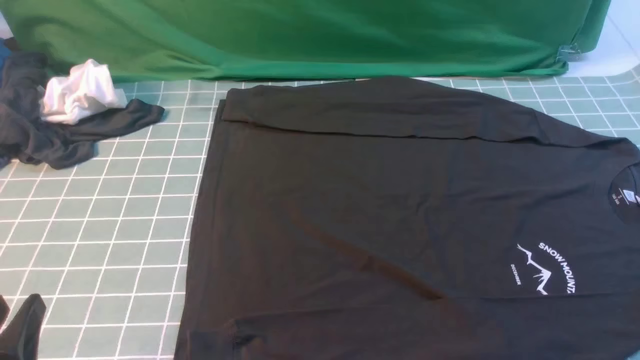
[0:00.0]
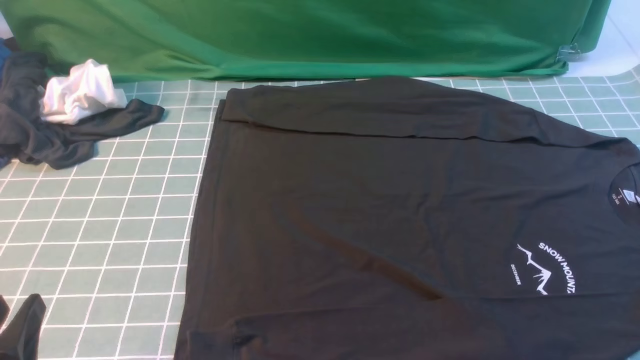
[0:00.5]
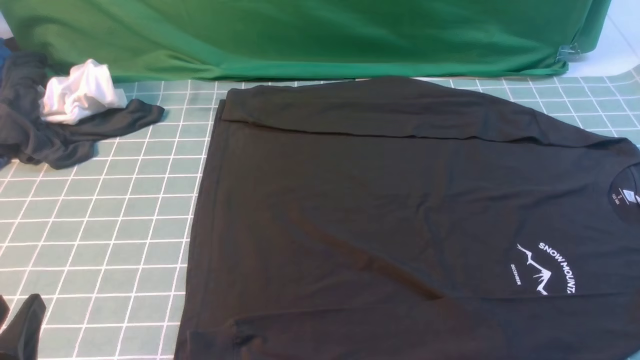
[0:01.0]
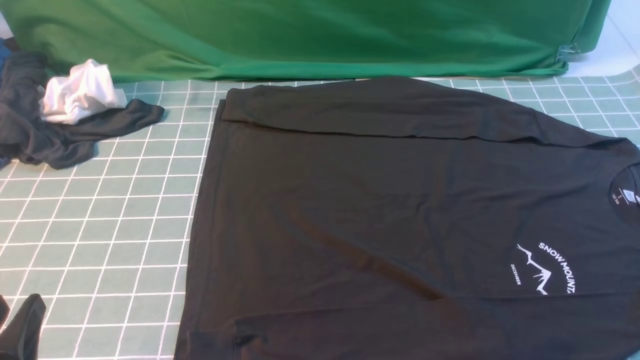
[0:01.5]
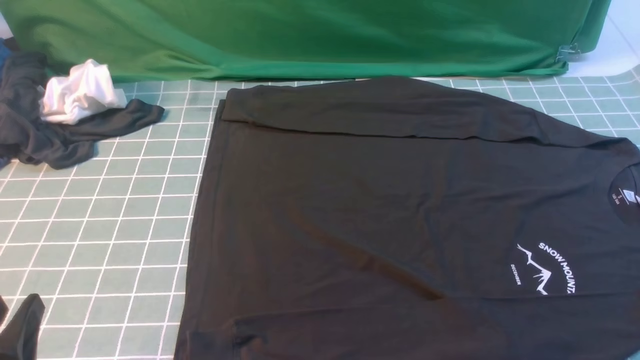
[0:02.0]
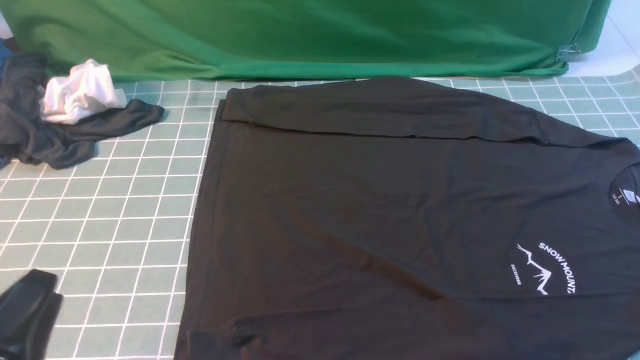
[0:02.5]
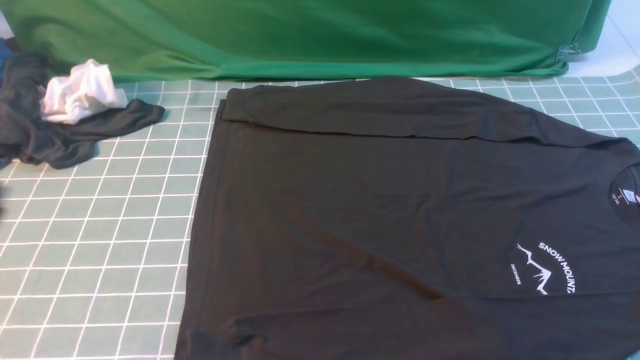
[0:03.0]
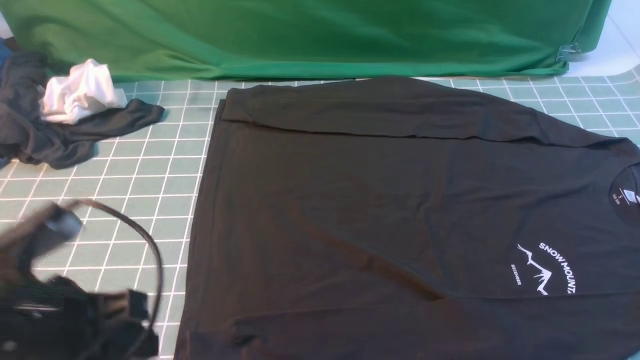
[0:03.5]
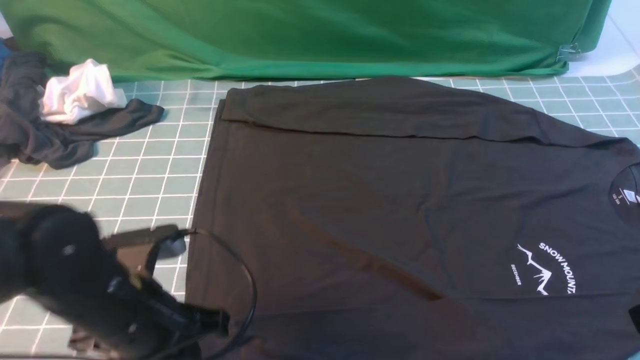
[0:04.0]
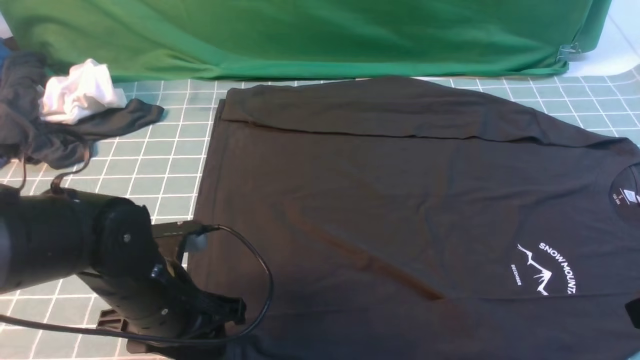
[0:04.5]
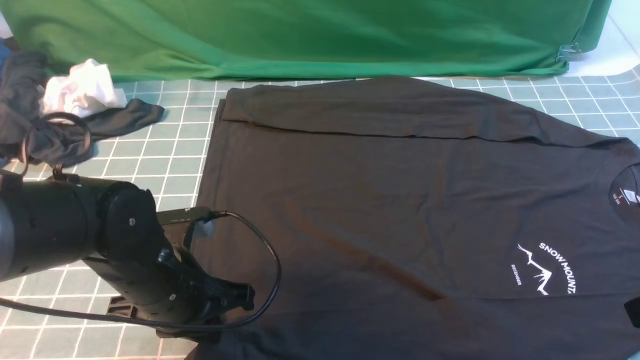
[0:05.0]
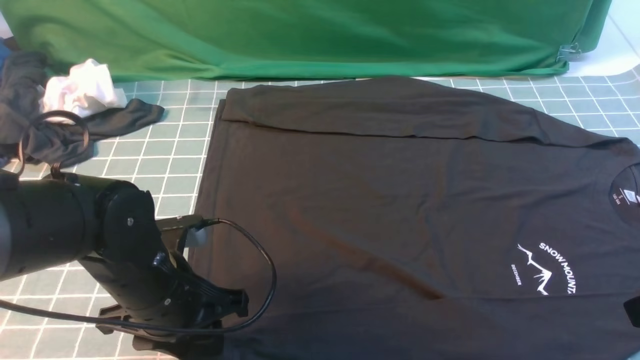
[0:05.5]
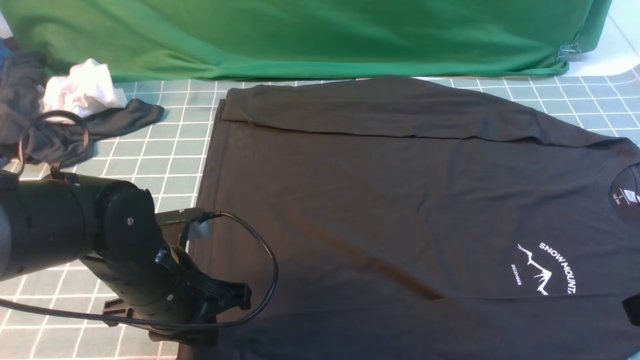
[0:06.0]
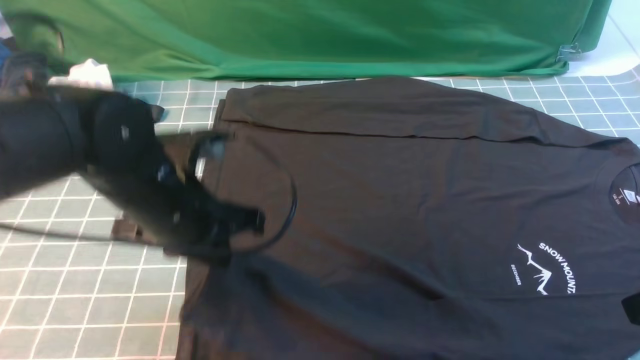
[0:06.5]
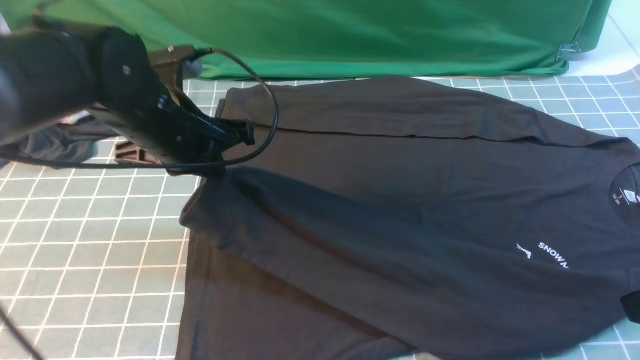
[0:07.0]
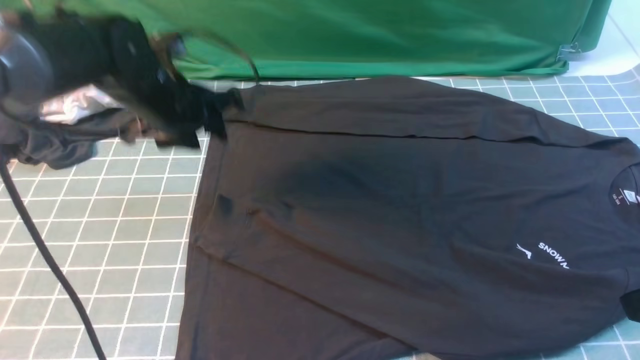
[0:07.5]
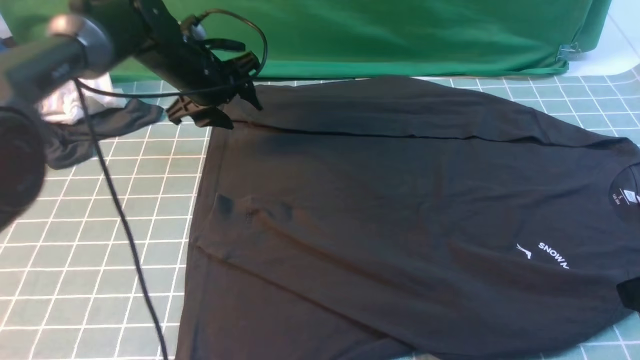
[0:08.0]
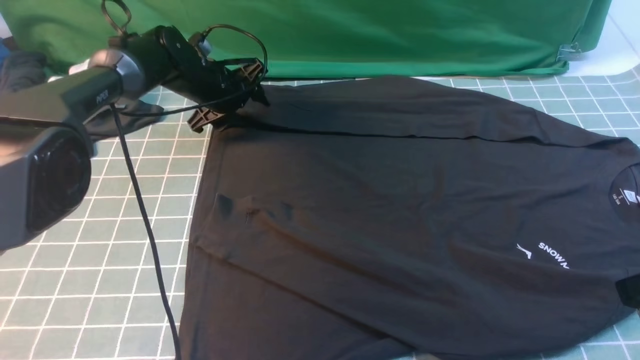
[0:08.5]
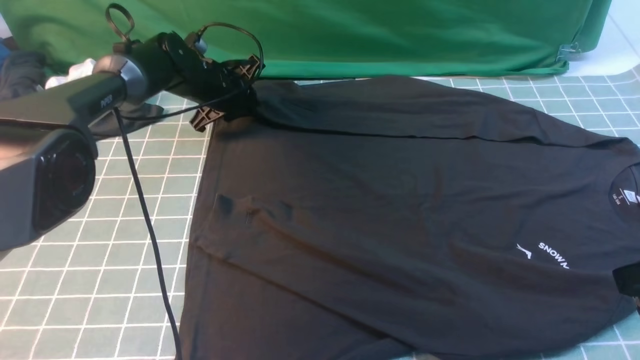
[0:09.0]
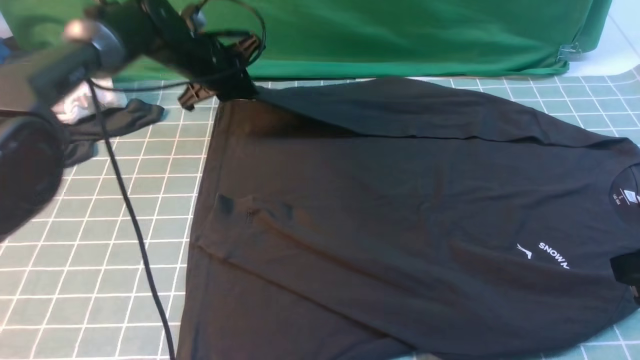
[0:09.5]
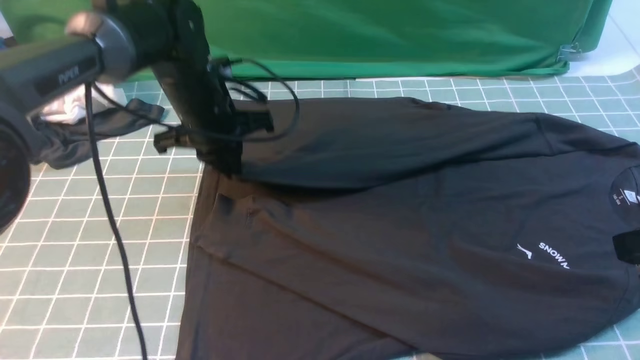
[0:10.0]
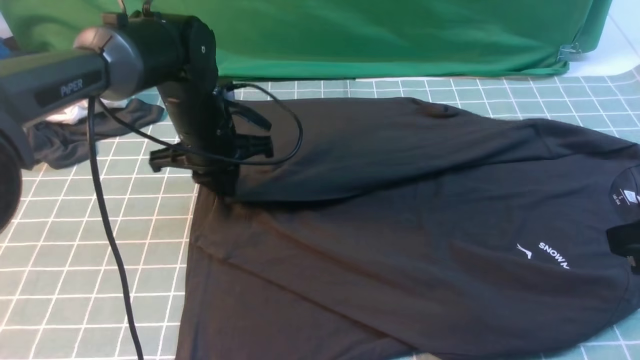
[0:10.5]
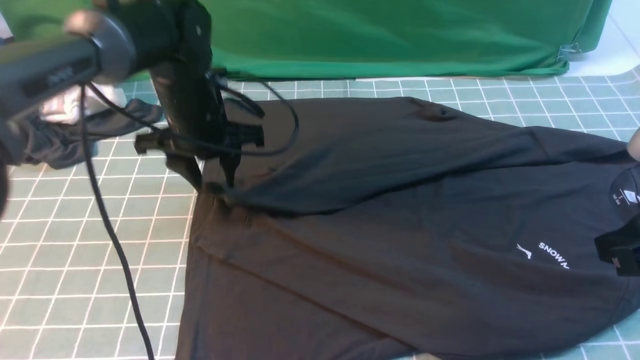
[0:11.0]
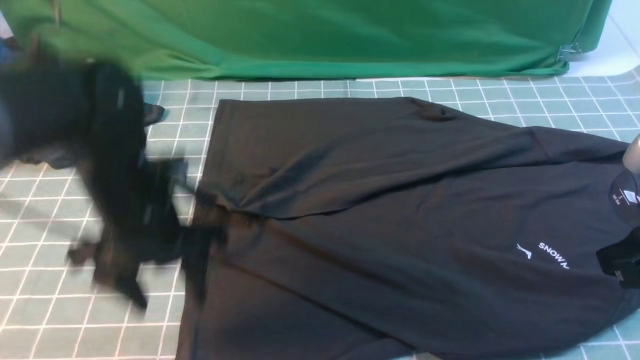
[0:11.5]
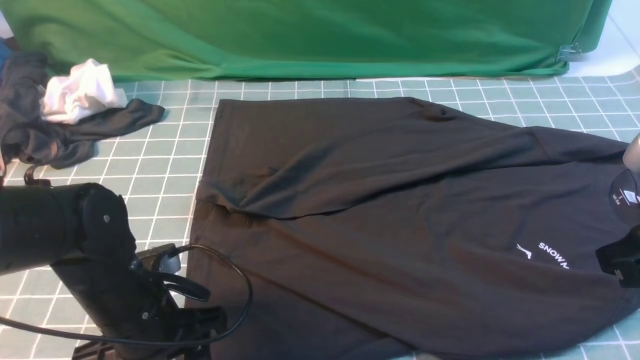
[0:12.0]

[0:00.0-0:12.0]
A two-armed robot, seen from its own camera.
Step, 0:00.0 to 0:05.5: use the left arm to clamp the cuff closest to it.
Step, 0:06.0 to 0:07.5: use the left arm to drag and place the cuff at the centered position on the left edge of the fabric.
Step, 0:08.0 to 0:09.0: use the left arm to clamp the cuff farthest from it.
Step, 0:09.5 to 0:11.0: use the left arm to drag and drop the cuff onto the cuff closest to the left arm.
0:02.0 to 0:04.0: The left gripper goes approximately 15 cm forward and to the right.
0:04.0 to 0:06.0: The left gripper opens, then closes once more.
0:06.0 to 0:08.0: The left gripper goes about 25 cm forward, and opens.
0:08.0 to 0:10.0: The left gripper shifts approximately 5 cm backward, and closes.
0:10.0 to 0:12.0: The left gripper goes approximately 20 cm backward, and opens its fingers.

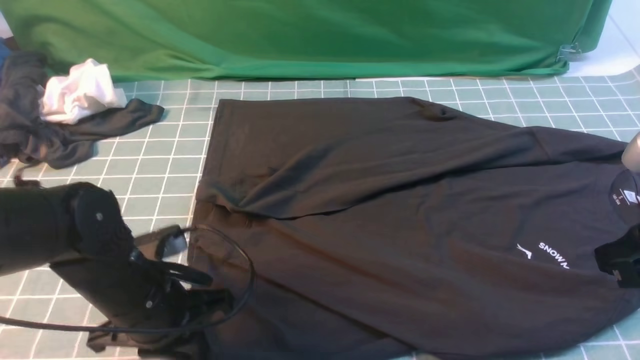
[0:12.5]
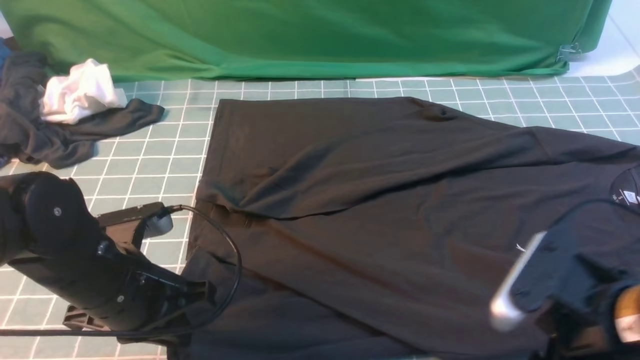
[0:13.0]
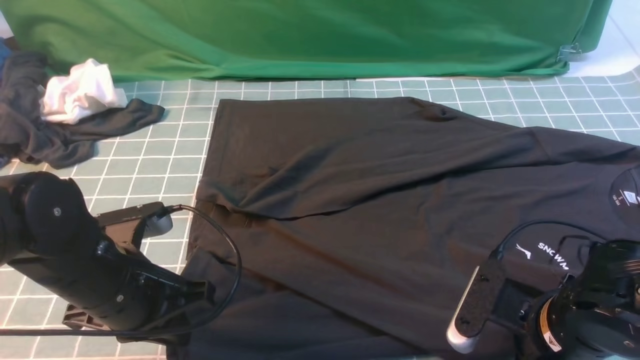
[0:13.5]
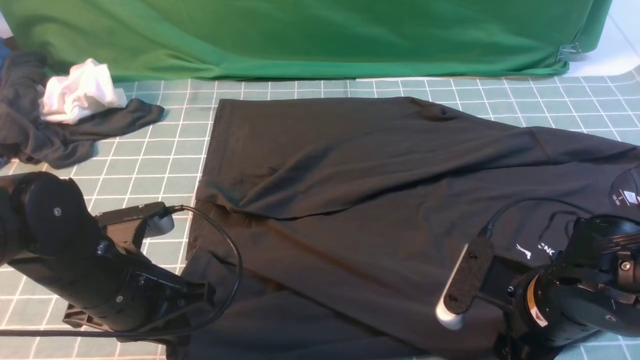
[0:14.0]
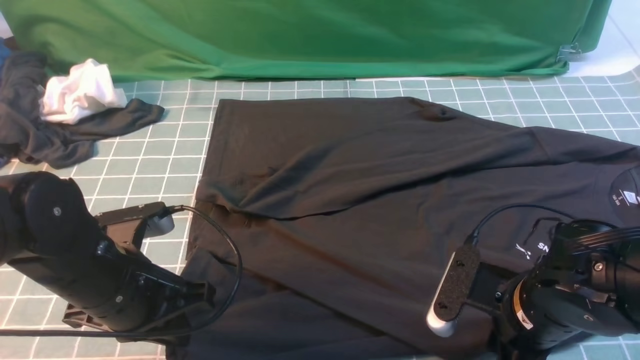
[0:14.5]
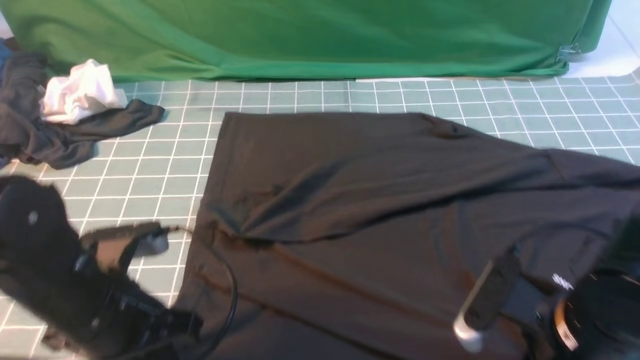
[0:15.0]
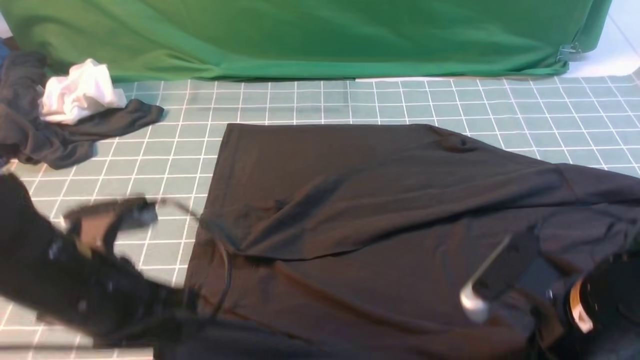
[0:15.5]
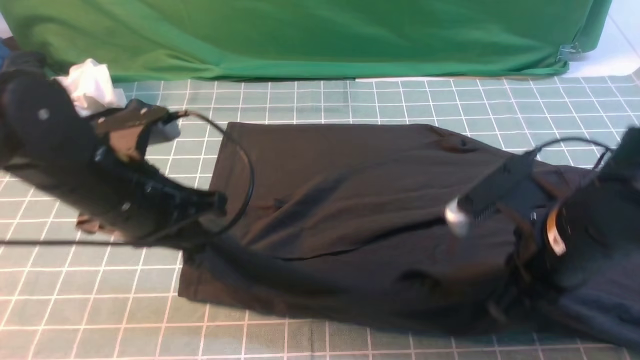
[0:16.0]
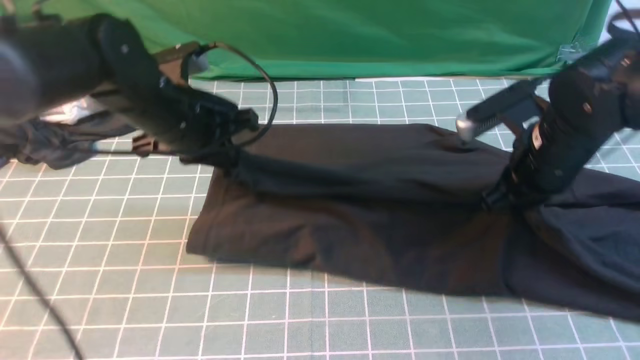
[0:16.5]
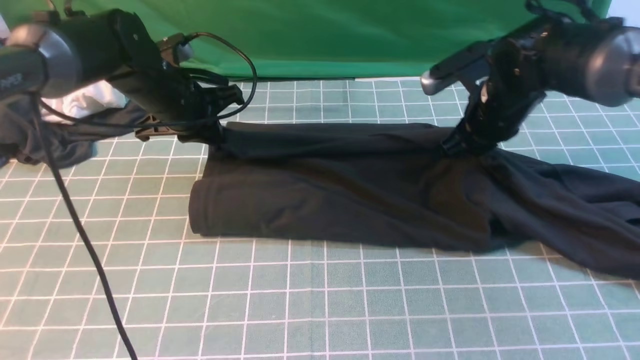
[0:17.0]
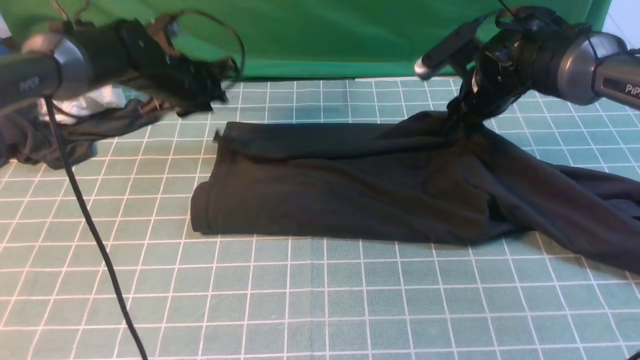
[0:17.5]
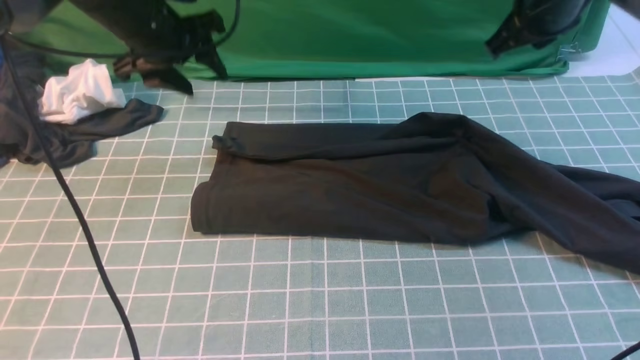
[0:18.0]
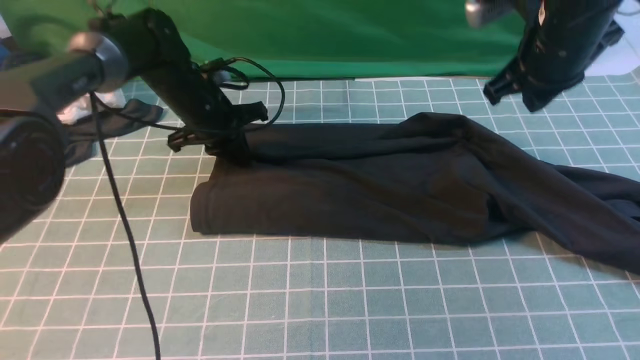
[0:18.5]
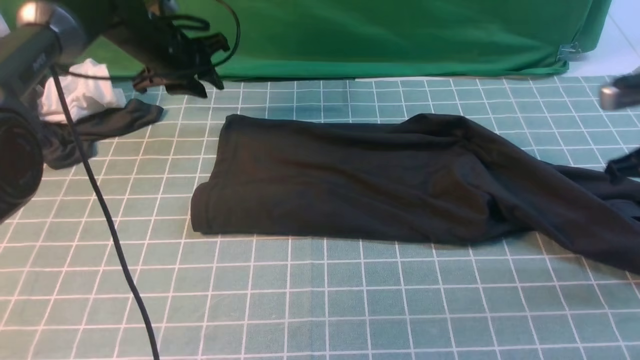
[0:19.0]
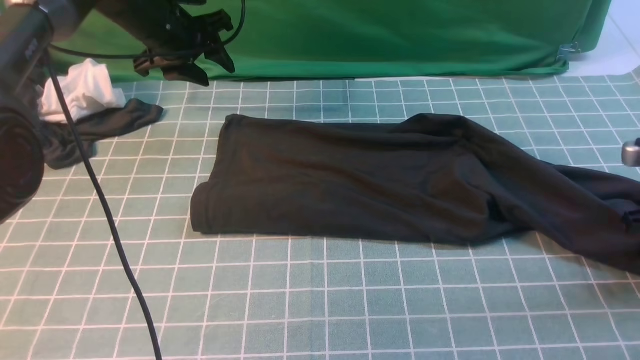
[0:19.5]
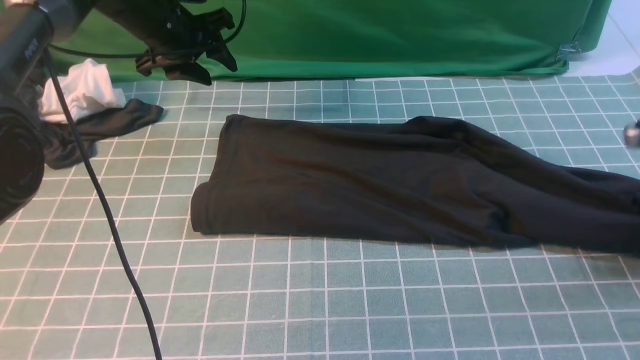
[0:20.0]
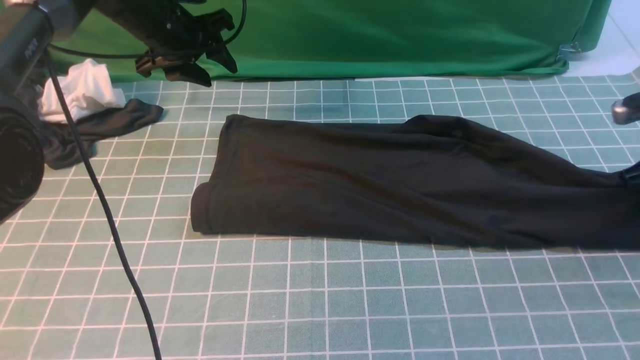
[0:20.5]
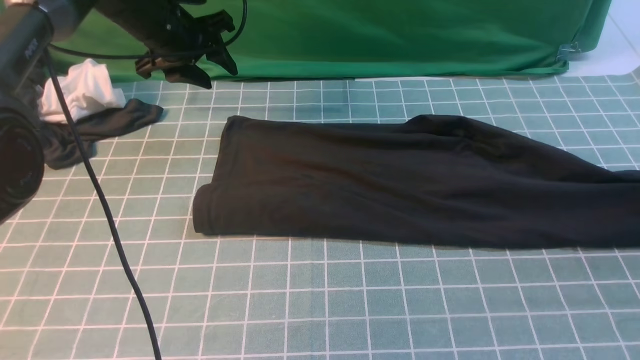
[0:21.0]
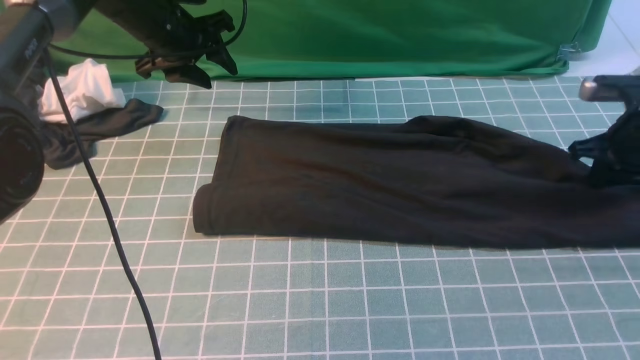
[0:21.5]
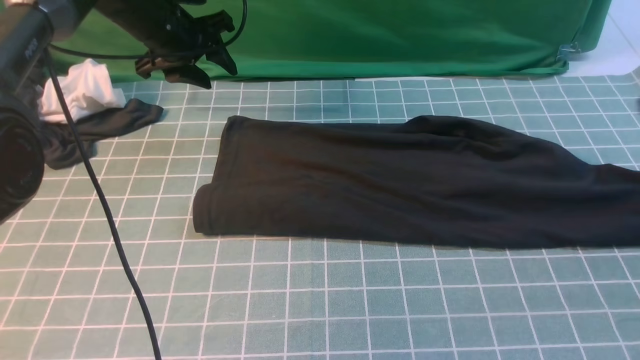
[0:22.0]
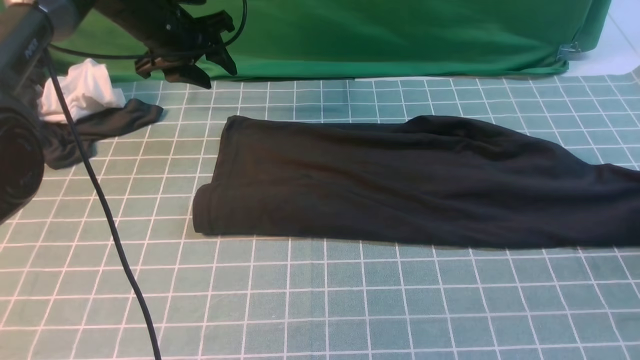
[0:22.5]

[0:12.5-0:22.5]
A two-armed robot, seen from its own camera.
Step, 0:12.5 to 0:14.5: use both arms simultaneously to clamp the lower edge of the clothing fabric.
Step, 0:15.0 to 0:18.0: use both arms to drag the lower edge of the fabric forward and fold it over the upper edge.
0:12.5 to 0:14.5: The right gripper goes approximately 15 cm downward and to the left, and opens and closes again.
0:14.5 to 0:16.5: The left gripper moves forward, some 15 cm, while the right gripper goes about 15 cm forward and upward, and closes its fingers.
0:16.5 to 0:18.5: The right gripper heads upward, covering approximately 10 cm, and opens, then closes again, while the left gripper goes some 15 cm forward and downward, and opens, then closes again.
0:18.5 to 0:20.5: The right gripper heads to the right and downward, covering roughly 20 cm, and opens up. Meanwhile the left gripper goes roughly 10 cm upward, and opens.
0:20.5 to 0:22.5: The right gripper moves to the right, about 5 cm, and opens its fingers.
